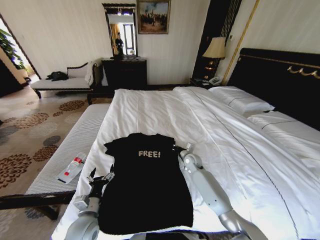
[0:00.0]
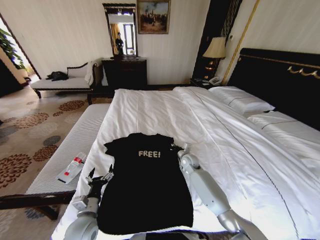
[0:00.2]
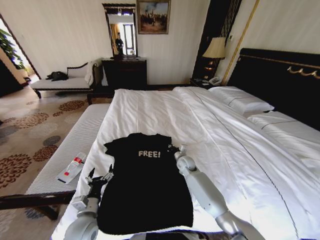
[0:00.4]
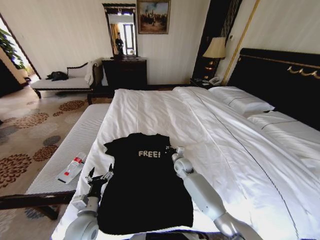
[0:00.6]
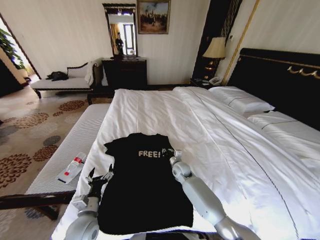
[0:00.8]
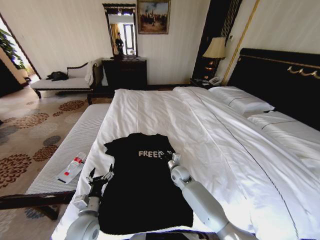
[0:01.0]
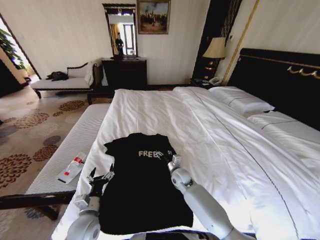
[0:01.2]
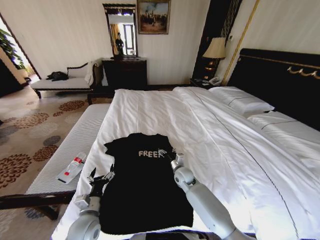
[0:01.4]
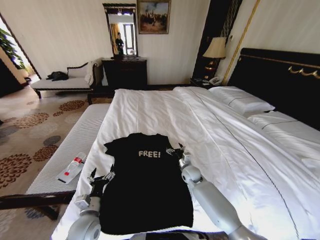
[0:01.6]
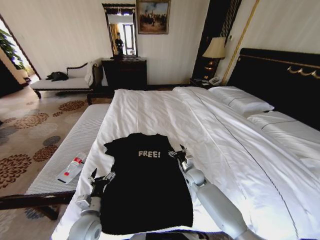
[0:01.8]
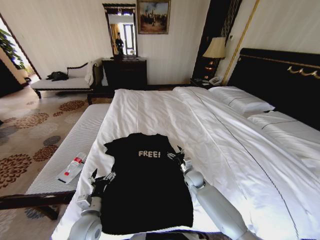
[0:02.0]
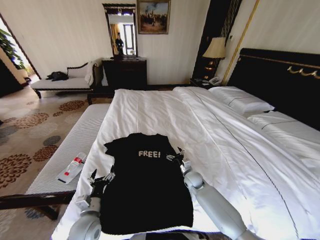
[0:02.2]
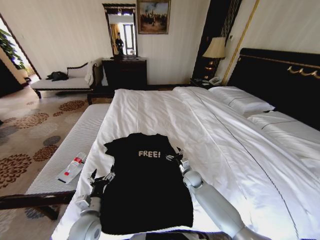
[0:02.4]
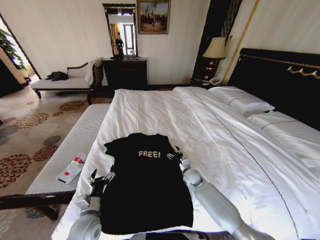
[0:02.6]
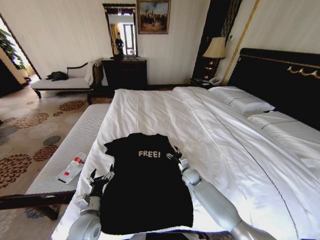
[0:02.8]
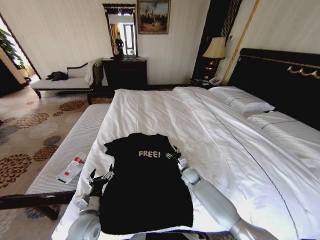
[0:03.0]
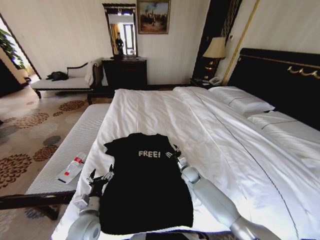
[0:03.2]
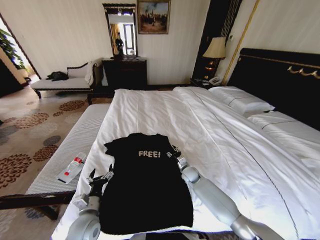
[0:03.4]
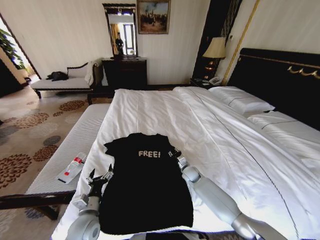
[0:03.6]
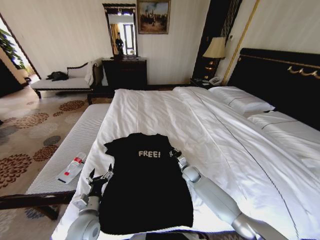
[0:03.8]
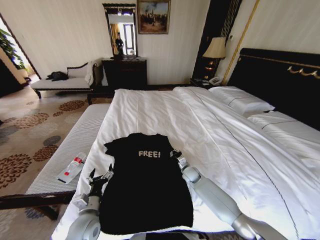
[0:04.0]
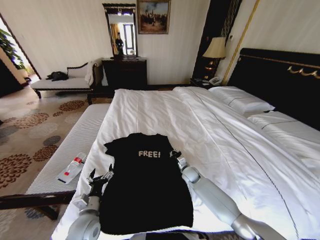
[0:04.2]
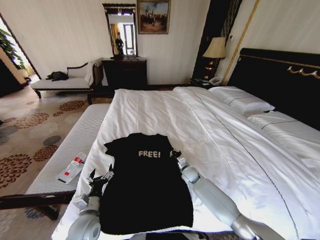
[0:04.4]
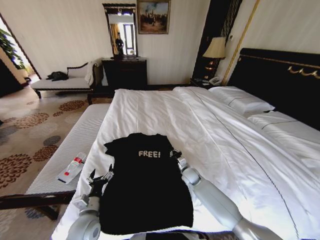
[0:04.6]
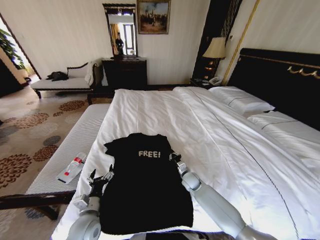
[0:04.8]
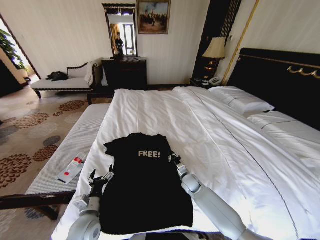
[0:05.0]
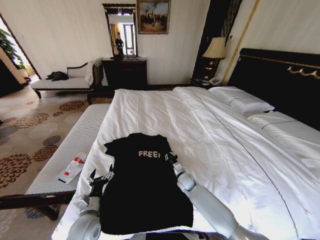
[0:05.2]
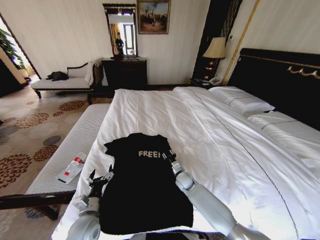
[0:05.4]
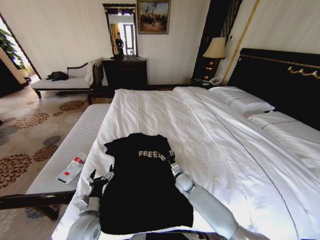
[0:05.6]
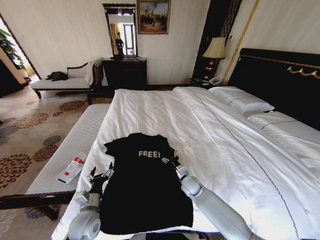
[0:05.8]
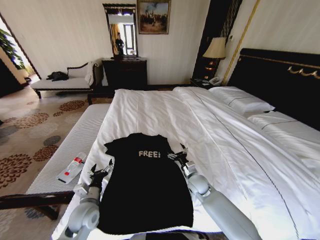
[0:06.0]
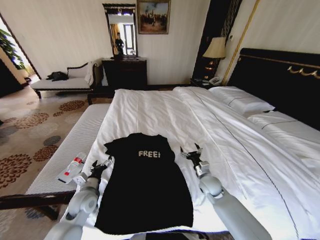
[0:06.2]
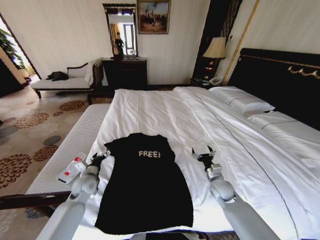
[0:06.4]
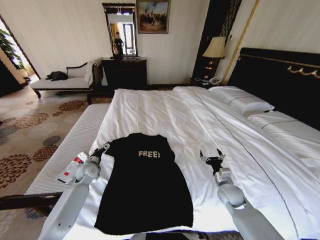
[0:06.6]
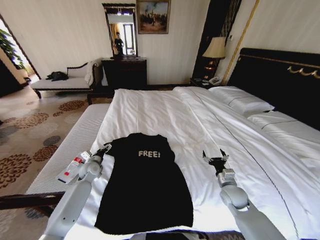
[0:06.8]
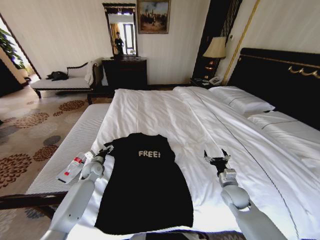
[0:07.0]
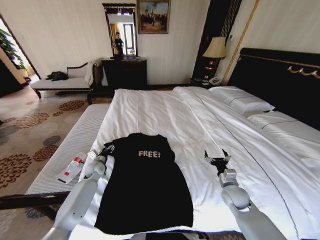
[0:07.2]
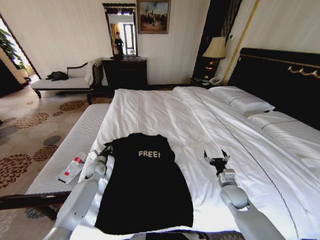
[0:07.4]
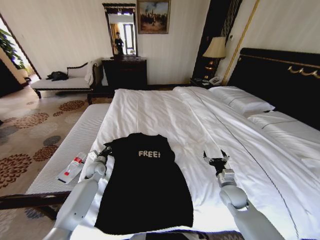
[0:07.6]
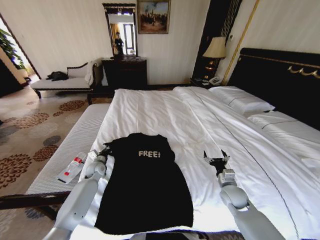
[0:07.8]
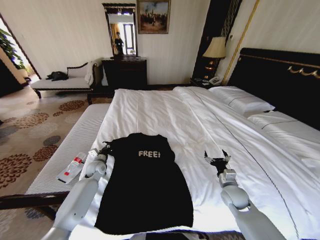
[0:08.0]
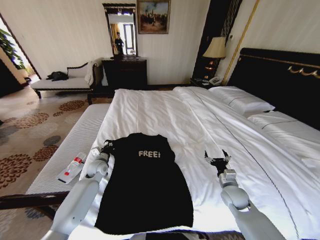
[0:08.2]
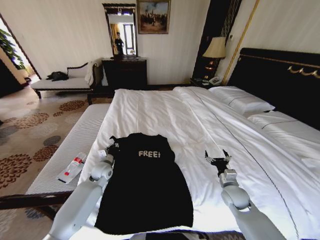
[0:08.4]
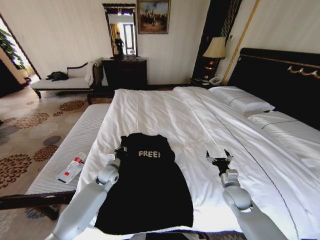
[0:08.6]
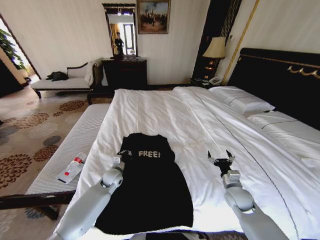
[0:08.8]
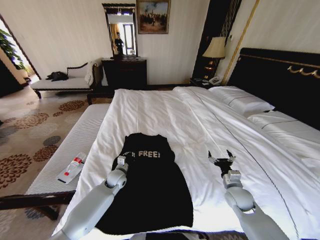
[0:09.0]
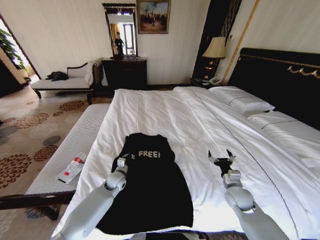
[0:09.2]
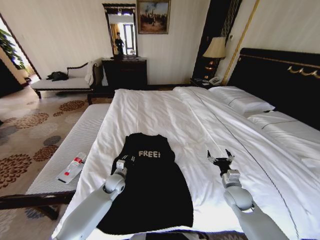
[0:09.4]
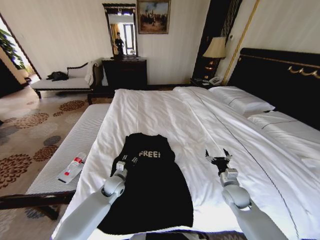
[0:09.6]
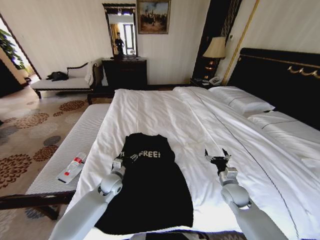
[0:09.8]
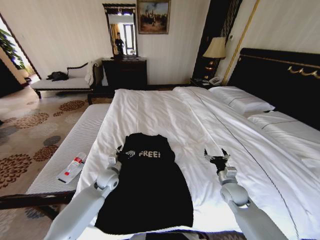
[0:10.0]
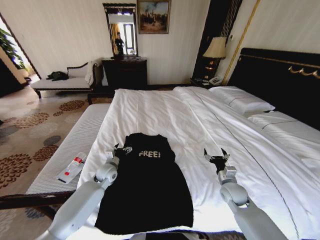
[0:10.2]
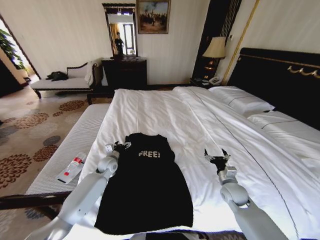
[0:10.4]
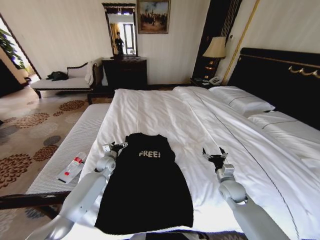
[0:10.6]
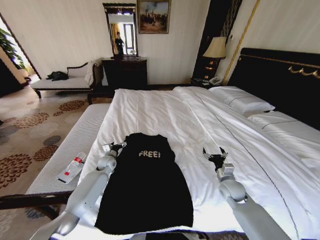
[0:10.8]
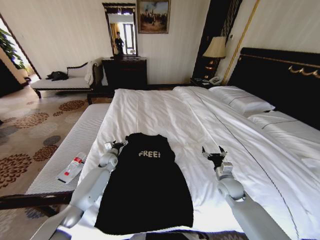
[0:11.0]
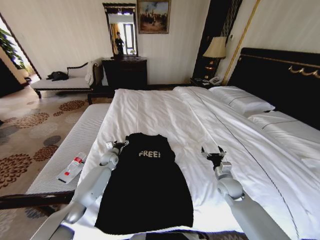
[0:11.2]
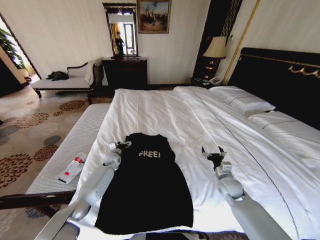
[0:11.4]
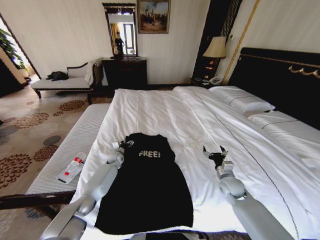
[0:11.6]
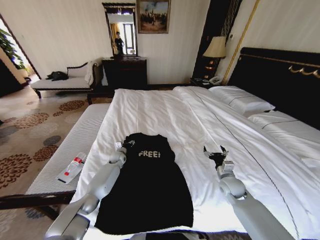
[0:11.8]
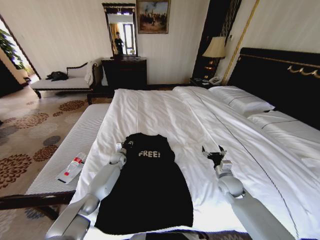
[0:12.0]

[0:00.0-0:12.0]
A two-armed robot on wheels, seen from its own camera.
Task of the whole recording: Fold the clothes on the bed.
0:00.0 to 0:01.6: The right gripper heads backward, covering about 5 cm, and opens.
0:01.6 to 0:03.0: The grippers move only a little.
0:03.0 to 0:04.4: The right gripper closes up.
0:04.4 to 0:06.0: The right gripper is displaced backward by about 5 cm, and opens.
0:06.0 to 0:07.6: The left gripper is displaced forward by some 20 cm, and closes up; the right gripper moves to the right and backward, approximately 15 cm.
0:07.6 to 0:09.0: The left gripper shifts some 10 cm to the right.
0:09.0 to 0:10.4: The left gripper travels forward by about 5 cm, and opens up.
0:10.4 to 0:12.0: The left gripper goes roughly 10 cm forward and downward, and closes.

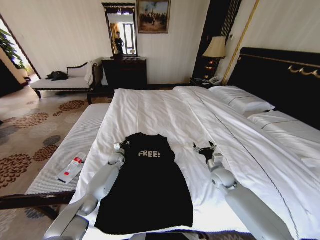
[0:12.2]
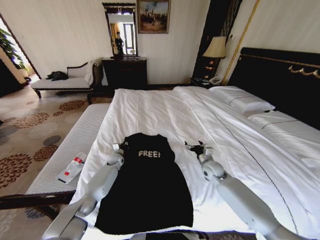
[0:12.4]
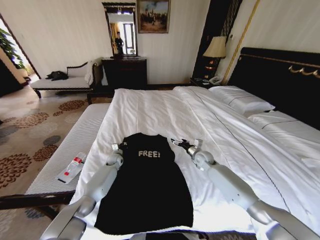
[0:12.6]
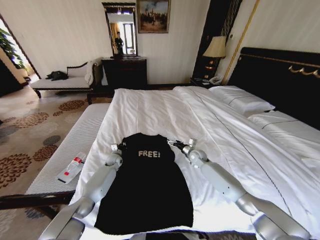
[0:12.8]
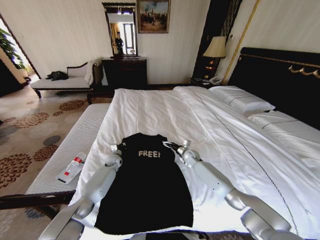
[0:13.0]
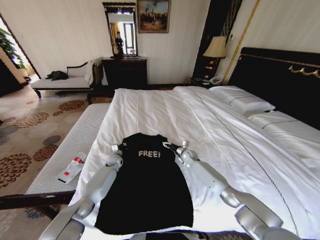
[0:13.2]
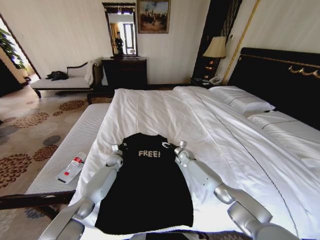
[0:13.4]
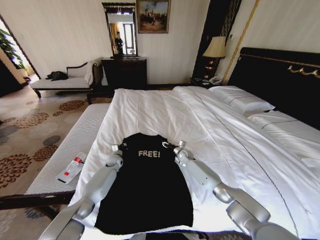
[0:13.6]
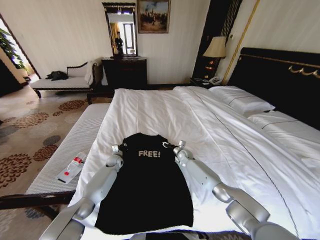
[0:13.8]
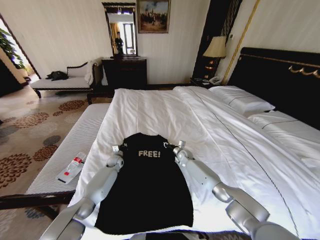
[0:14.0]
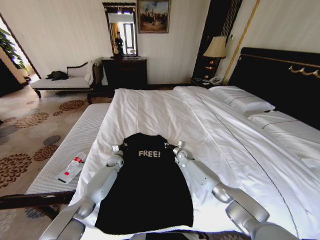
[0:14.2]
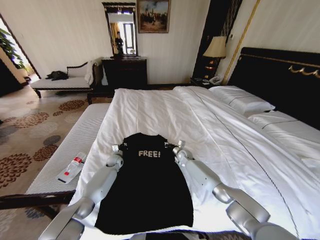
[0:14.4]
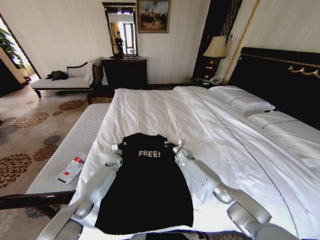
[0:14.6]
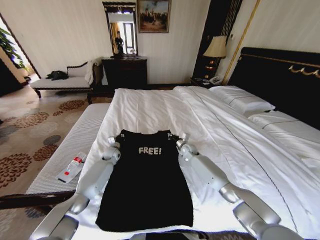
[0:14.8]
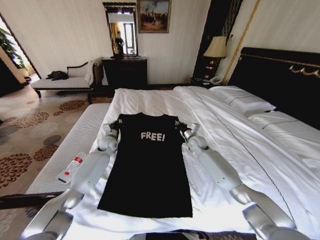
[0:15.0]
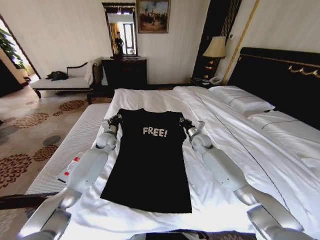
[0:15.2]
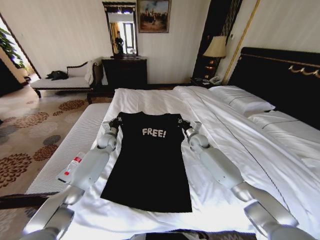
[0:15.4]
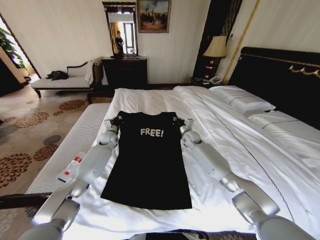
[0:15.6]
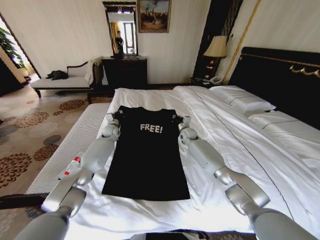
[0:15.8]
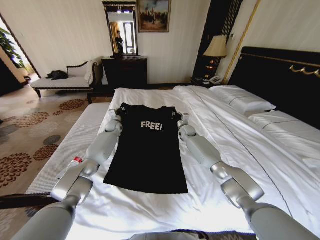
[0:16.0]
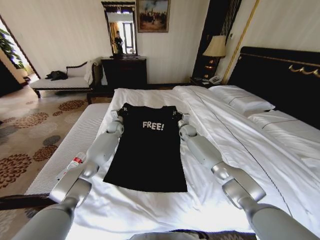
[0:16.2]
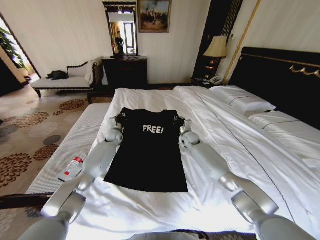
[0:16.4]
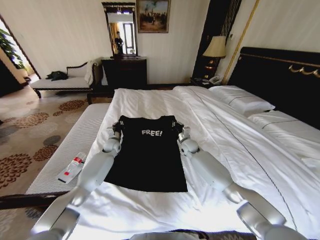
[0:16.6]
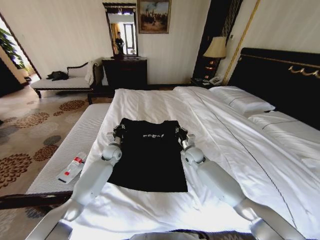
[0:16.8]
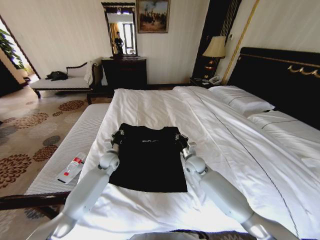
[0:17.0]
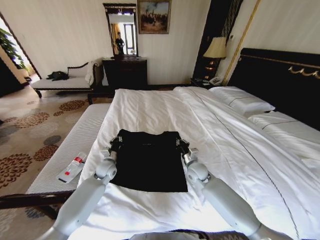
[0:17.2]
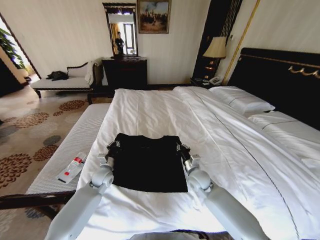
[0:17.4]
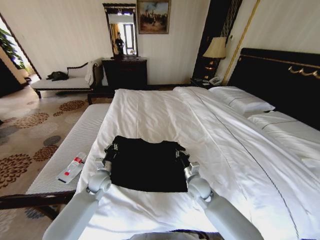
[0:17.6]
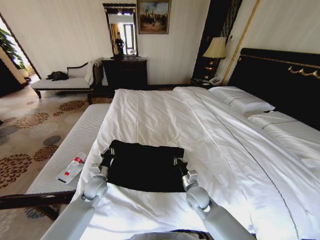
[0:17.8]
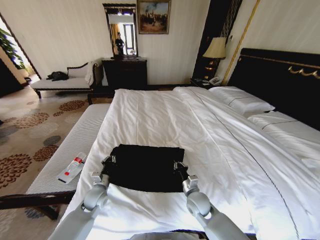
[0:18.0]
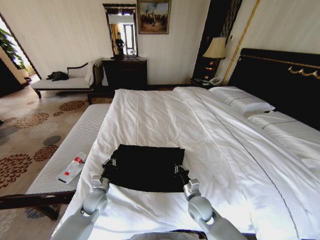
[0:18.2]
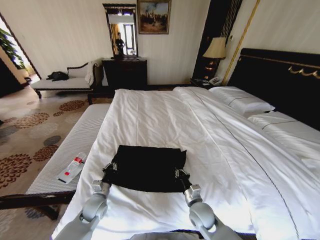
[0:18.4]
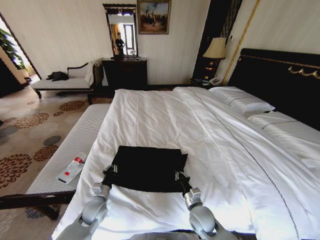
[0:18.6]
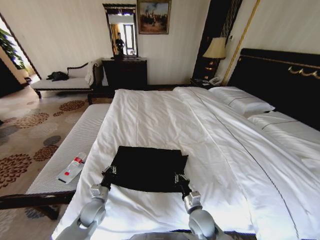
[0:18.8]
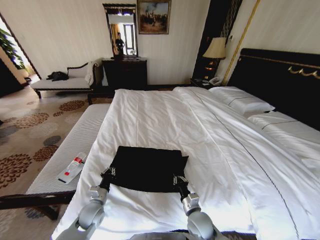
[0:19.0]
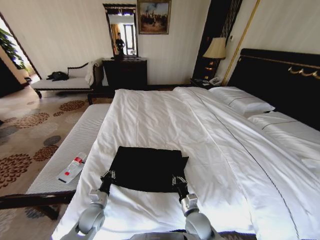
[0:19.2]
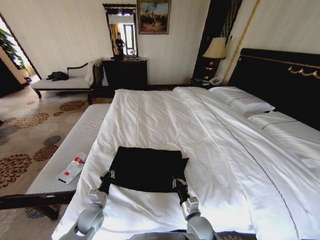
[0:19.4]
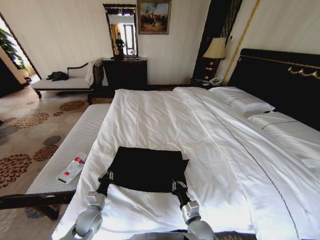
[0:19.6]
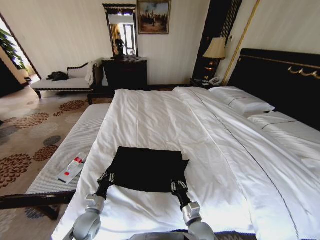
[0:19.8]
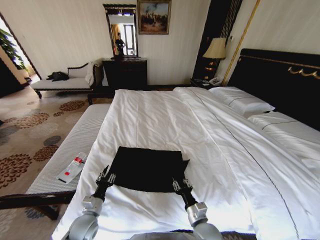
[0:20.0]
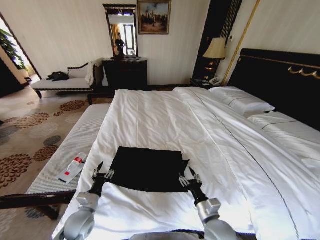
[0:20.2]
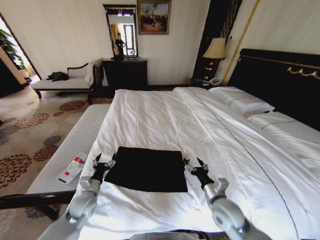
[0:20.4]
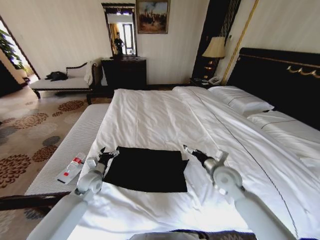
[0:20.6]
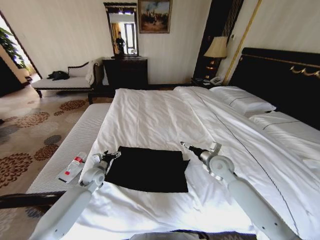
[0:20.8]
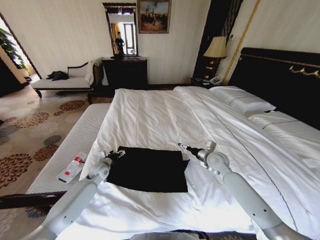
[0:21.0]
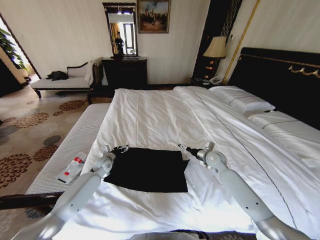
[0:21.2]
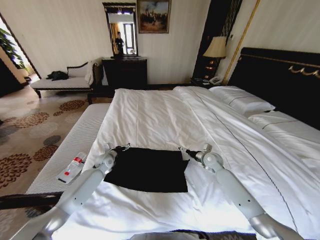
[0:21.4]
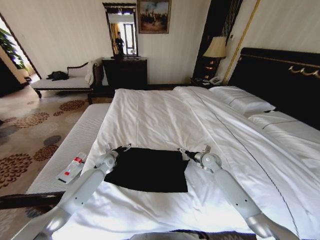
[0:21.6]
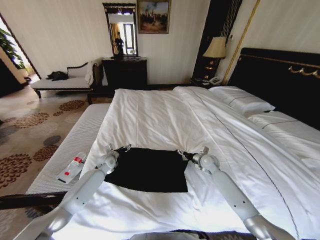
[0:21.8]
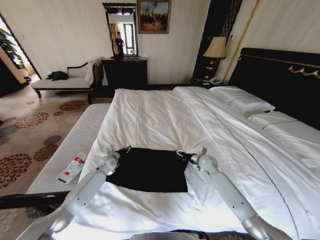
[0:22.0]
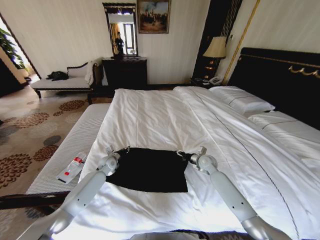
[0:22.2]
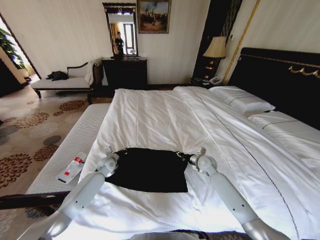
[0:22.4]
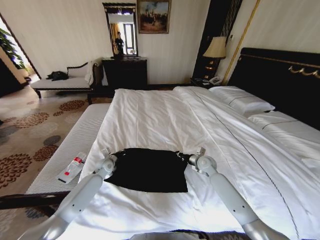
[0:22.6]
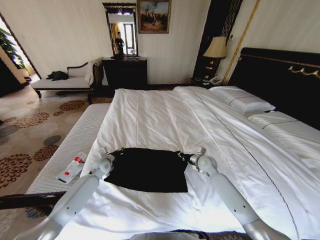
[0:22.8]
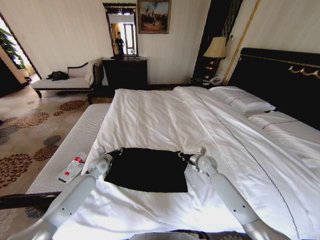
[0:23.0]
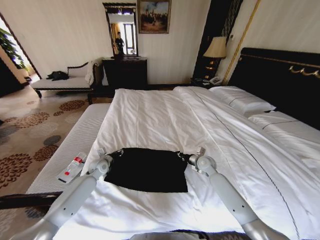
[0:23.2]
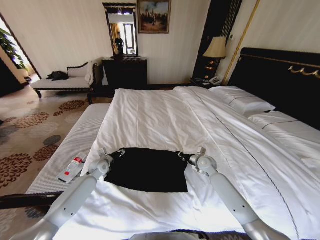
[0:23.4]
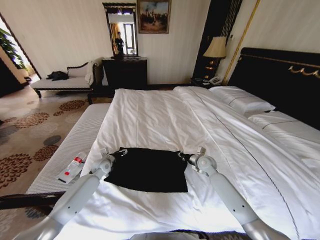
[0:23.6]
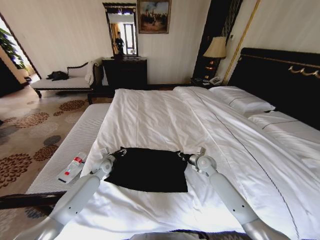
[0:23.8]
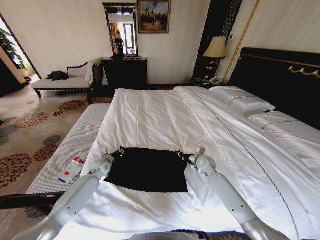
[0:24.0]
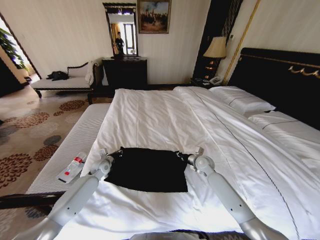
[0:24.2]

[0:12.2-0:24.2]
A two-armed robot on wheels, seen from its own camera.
Task of the whole recording: Fold the clothes on the bed.
0:12.2 to 0:13.8: The right gripper goes about 20 cm forward, to the left and downward, and closes.
0:13.8 to 0:15.2: Both grippers move upward, about 15 cm. The right gripper closes up.
0:15.2 to 0:16.6: The left gripper is displaced downward by about 5 cm, and moves approximately 10 cm forward and comes back. Meanwhile the right gripper heads to the left, covering roughly 5 cm, and travels forward and back again, approximately 10 cm each way.
0:16.6 to 0:18.2: Both grippers move backward, approximately 25 cm.
0:18.2 to 0:19.8: The two grippers go approximately 10 cm backward.
0:19.8 to 0:21.2: The right gripper travels forward and to the right by approximately 30 cm, and opens its fingers. The left gripper shifts roughly 25 cm forward, and opens up.
0:21.2 to 0:22.6: The right gripper shifts by about 5 cm, and closes up, while the left gripper closes up.
0:22.6 to 0:24.2: The left gripper opens and closes again.
